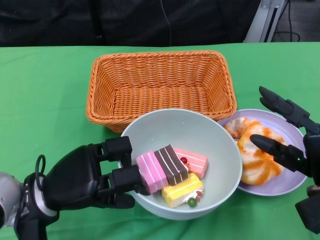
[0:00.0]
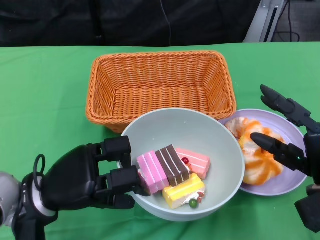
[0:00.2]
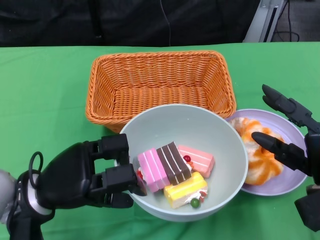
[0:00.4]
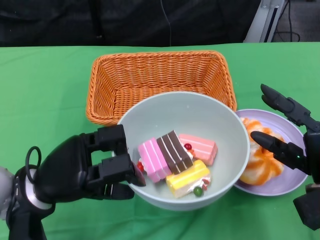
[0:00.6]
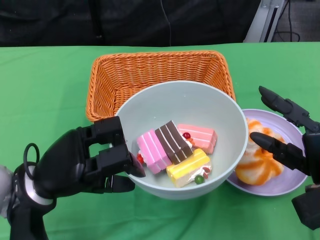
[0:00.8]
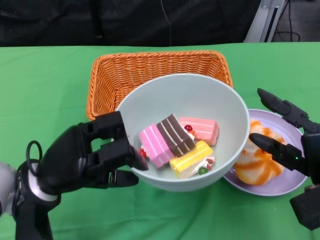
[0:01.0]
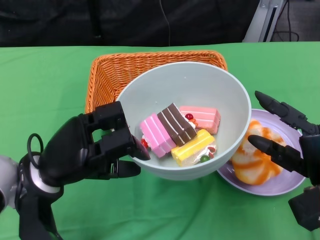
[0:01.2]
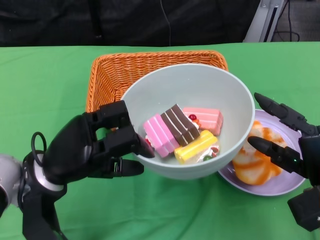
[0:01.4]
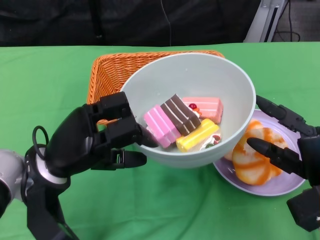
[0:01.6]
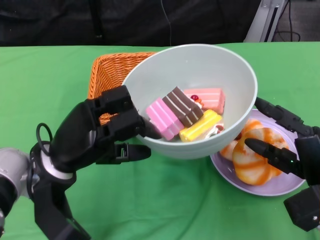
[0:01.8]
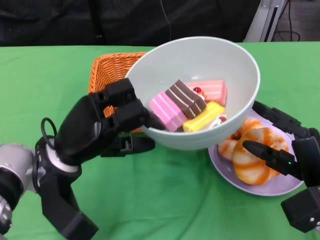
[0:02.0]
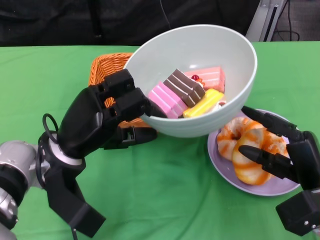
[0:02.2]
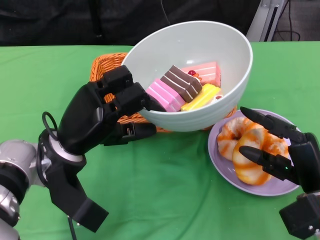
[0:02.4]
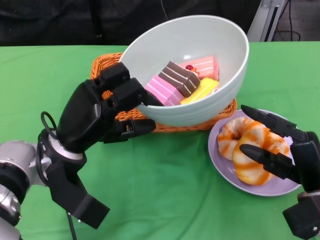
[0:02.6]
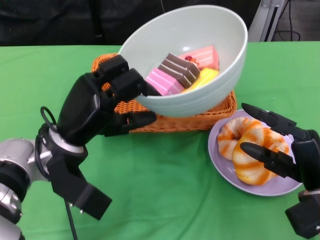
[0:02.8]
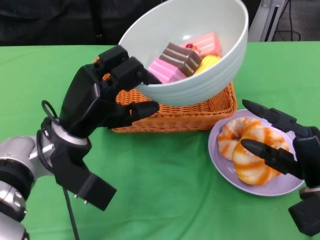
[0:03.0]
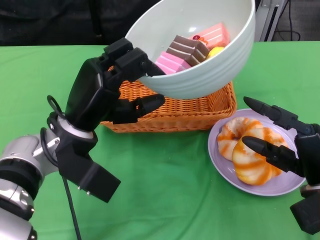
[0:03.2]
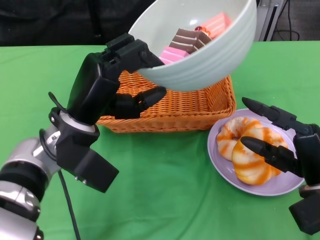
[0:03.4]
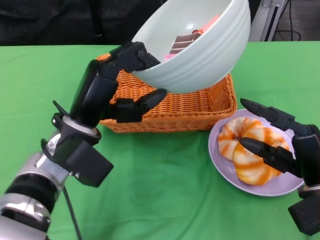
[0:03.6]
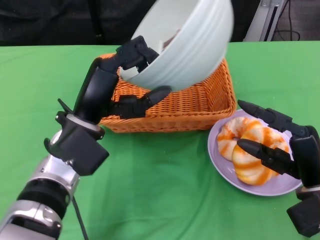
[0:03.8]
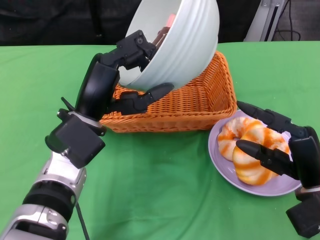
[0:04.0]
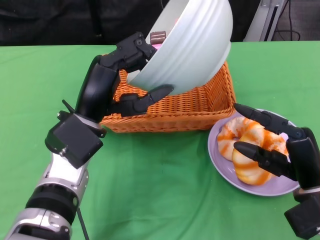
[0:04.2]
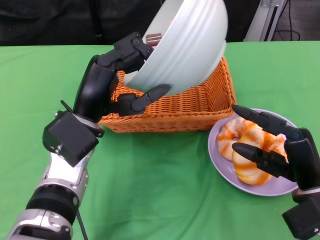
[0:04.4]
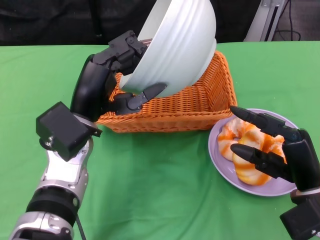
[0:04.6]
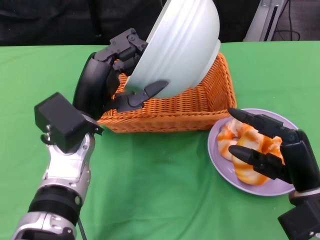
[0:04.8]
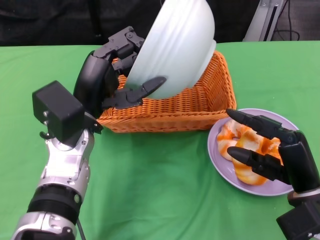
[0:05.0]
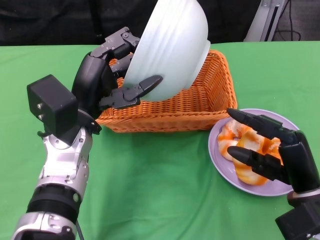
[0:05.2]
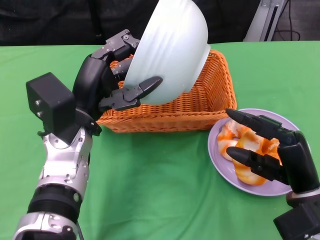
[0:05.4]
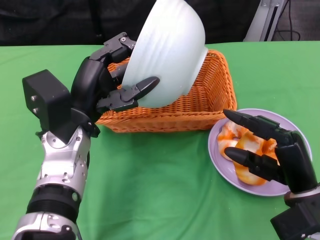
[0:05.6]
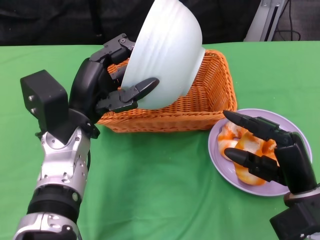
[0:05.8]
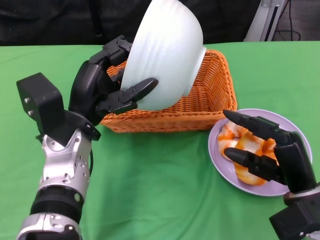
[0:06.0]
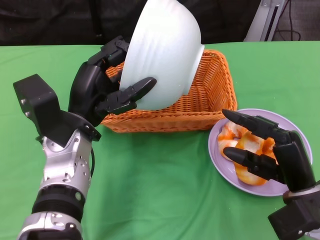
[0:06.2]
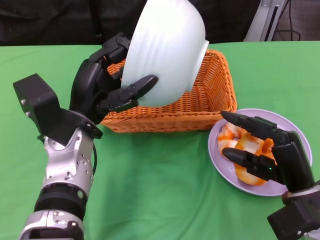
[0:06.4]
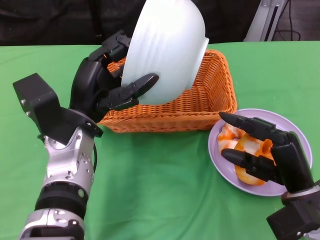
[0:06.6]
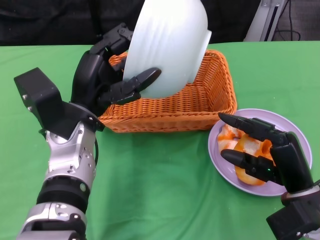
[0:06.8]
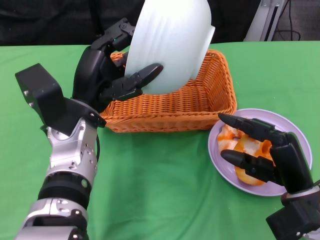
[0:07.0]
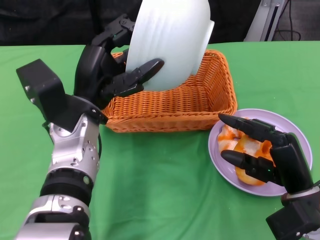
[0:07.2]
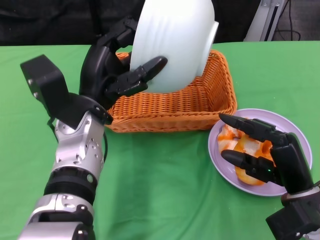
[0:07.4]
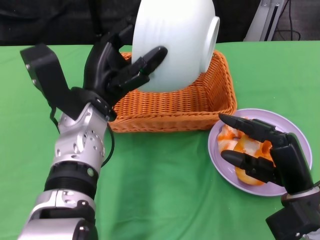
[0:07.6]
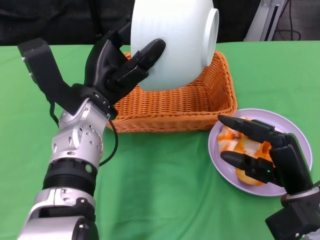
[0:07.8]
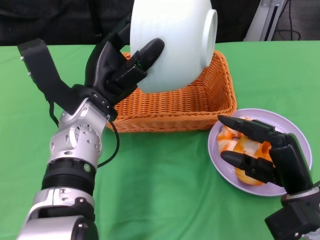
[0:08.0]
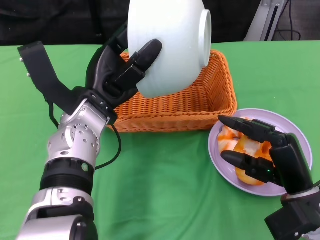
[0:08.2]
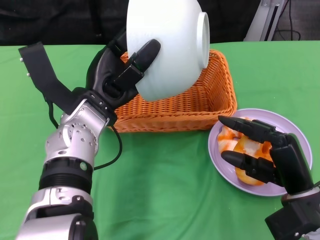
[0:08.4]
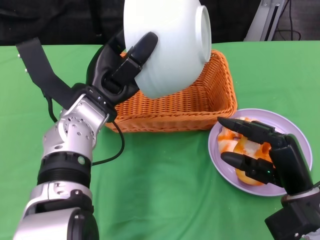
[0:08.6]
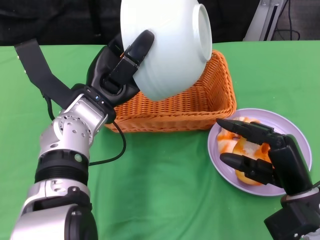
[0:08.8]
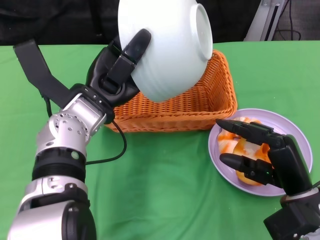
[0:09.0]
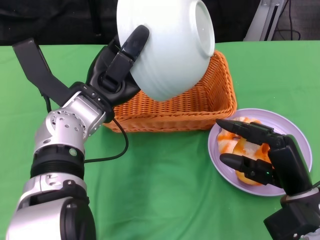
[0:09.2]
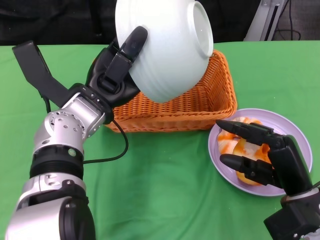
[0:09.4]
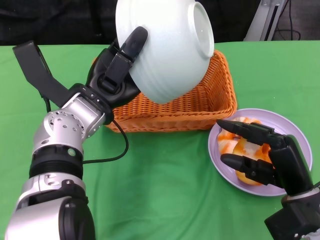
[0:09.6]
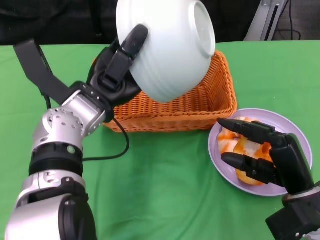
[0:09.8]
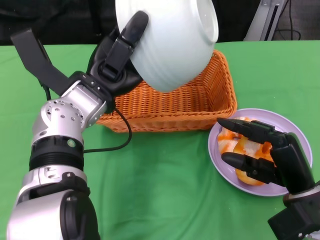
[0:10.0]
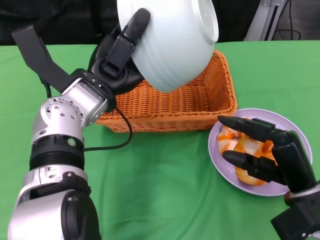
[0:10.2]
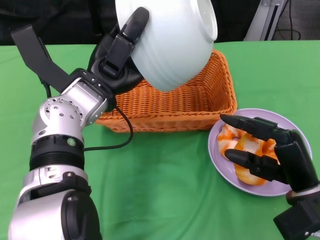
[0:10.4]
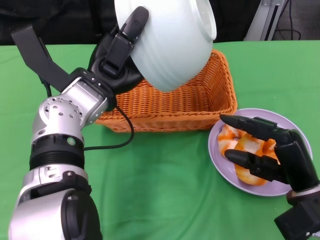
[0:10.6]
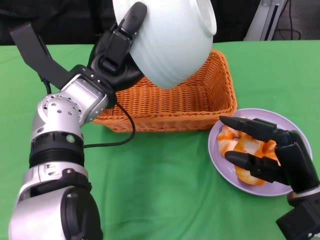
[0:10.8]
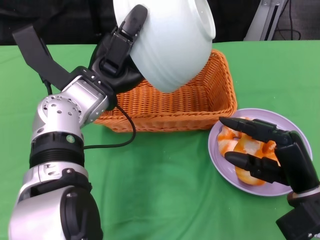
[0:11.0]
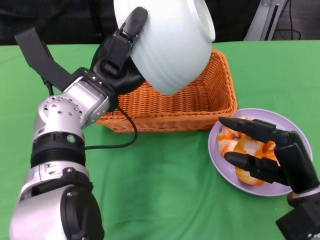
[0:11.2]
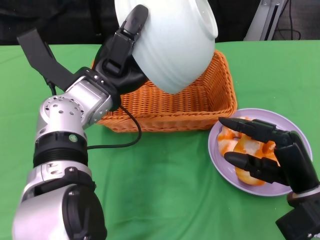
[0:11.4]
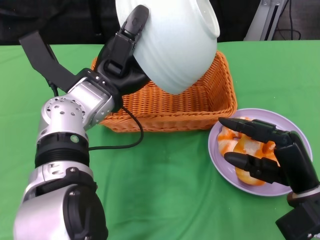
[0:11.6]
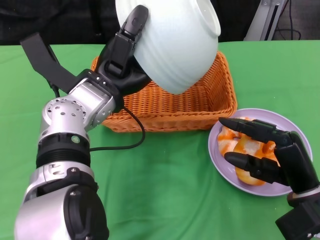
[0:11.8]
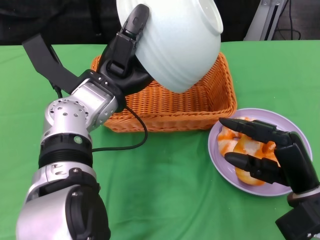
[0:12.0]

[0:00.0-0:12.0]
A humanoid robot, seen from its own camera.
0:01.6 to 0:03.0: The left hand shifts by about 5 cm.
0:10.4 to 0:12.0: The hands stay close to where they were, moving slightly.

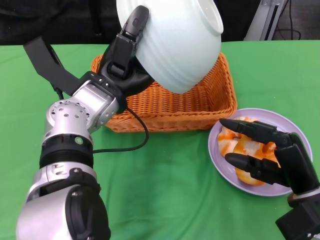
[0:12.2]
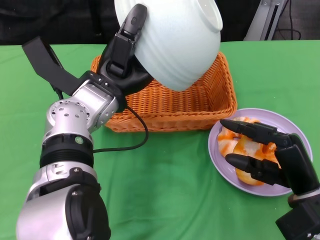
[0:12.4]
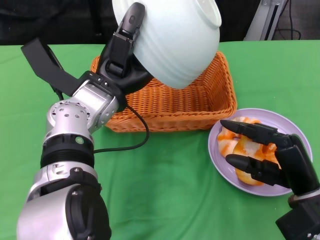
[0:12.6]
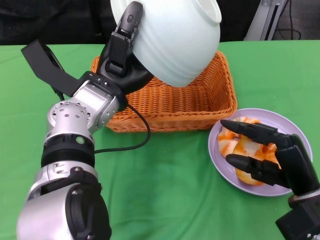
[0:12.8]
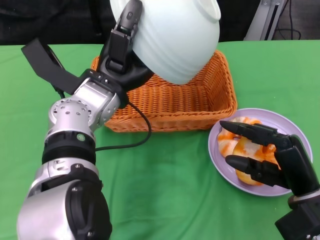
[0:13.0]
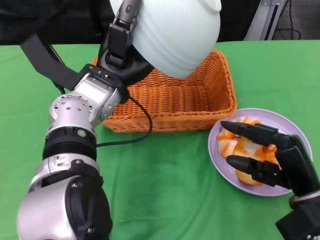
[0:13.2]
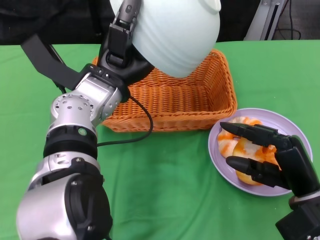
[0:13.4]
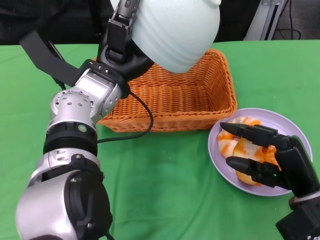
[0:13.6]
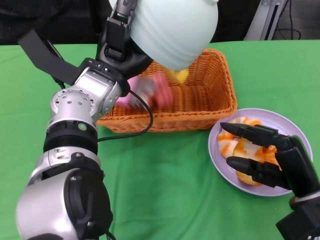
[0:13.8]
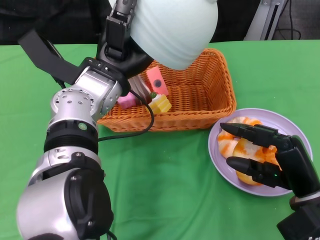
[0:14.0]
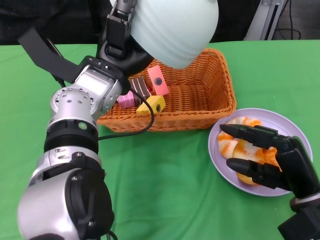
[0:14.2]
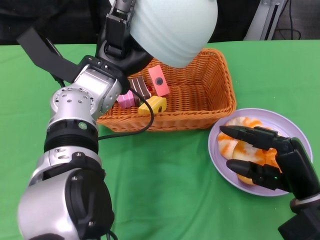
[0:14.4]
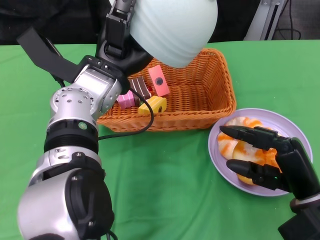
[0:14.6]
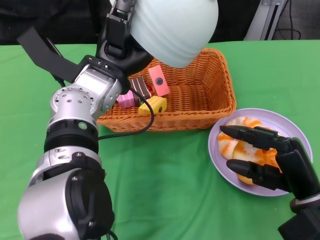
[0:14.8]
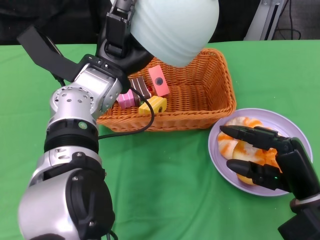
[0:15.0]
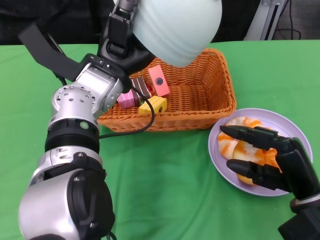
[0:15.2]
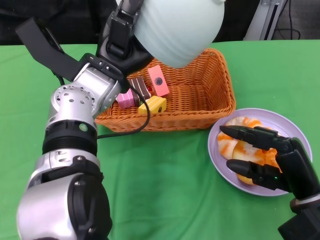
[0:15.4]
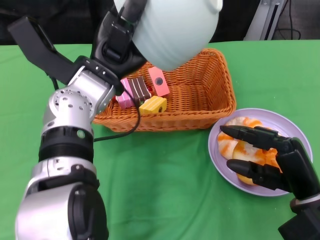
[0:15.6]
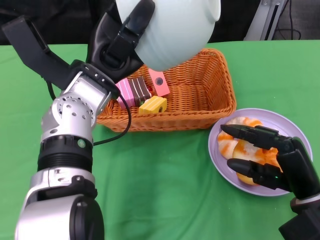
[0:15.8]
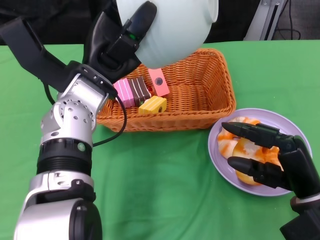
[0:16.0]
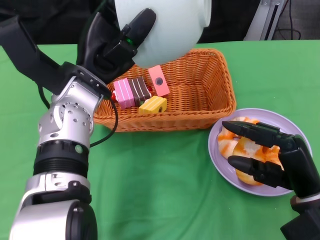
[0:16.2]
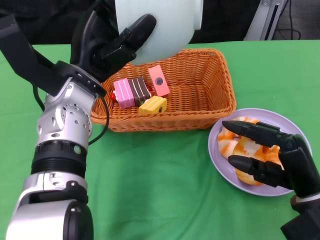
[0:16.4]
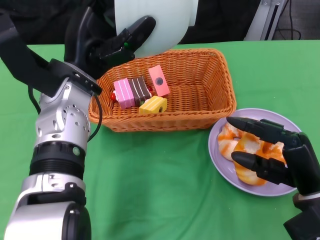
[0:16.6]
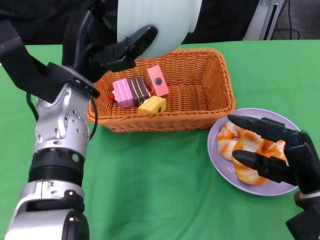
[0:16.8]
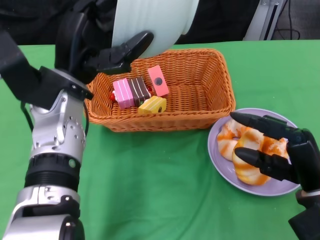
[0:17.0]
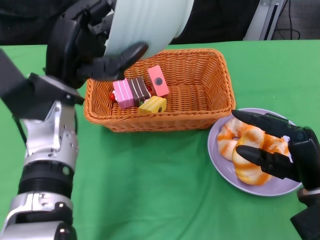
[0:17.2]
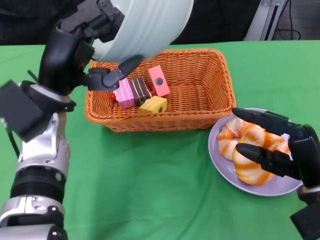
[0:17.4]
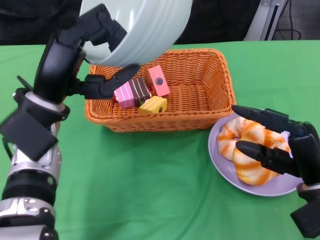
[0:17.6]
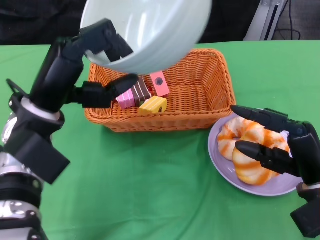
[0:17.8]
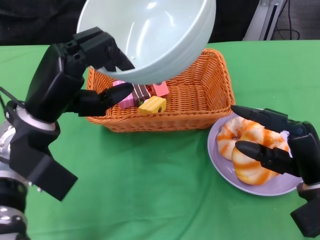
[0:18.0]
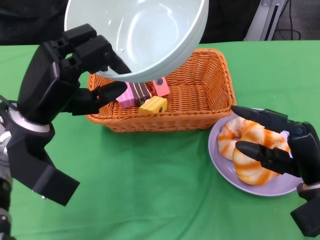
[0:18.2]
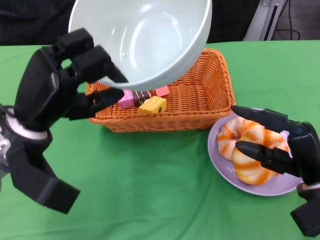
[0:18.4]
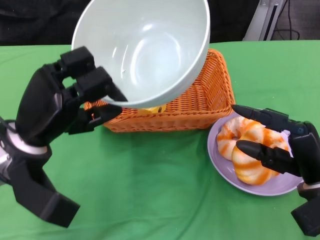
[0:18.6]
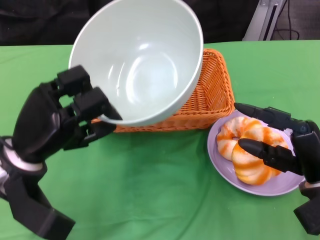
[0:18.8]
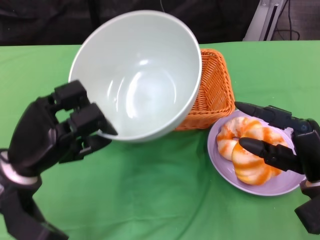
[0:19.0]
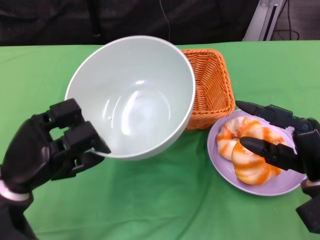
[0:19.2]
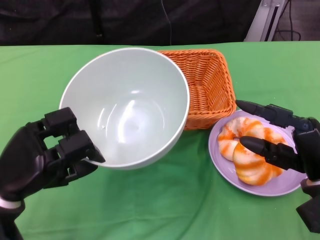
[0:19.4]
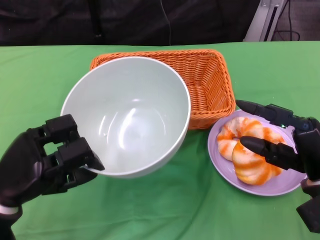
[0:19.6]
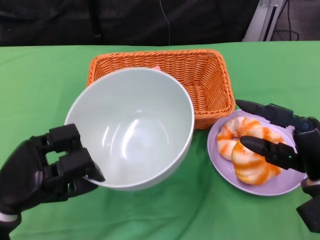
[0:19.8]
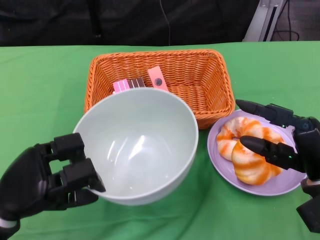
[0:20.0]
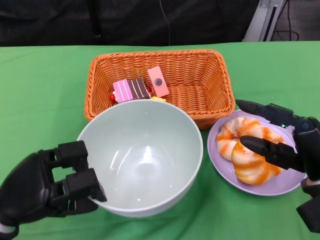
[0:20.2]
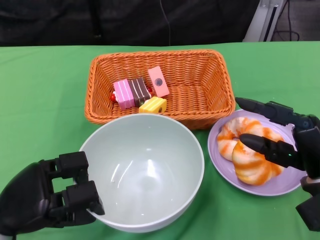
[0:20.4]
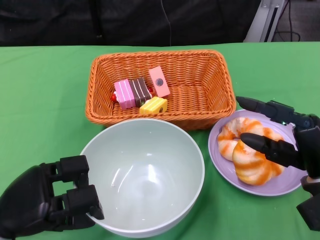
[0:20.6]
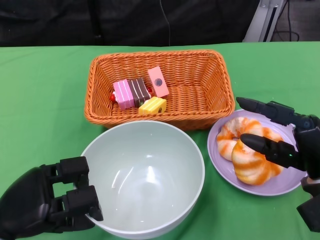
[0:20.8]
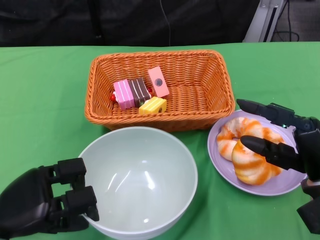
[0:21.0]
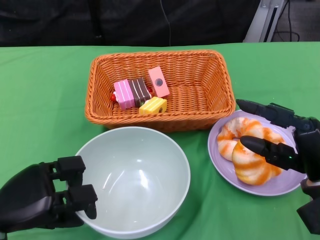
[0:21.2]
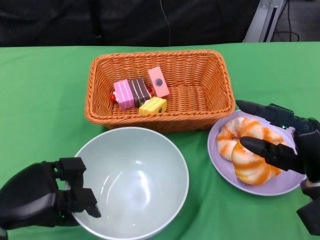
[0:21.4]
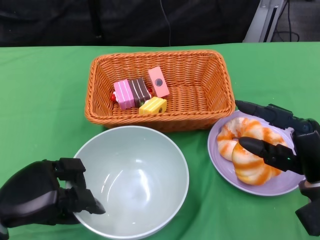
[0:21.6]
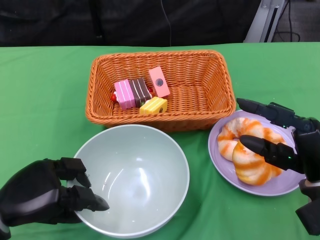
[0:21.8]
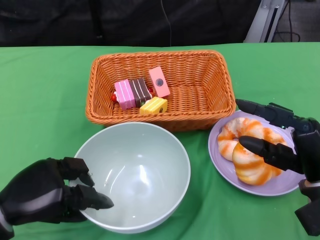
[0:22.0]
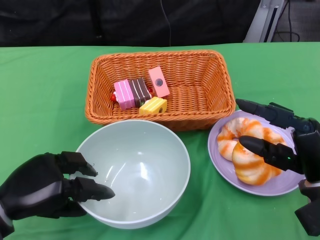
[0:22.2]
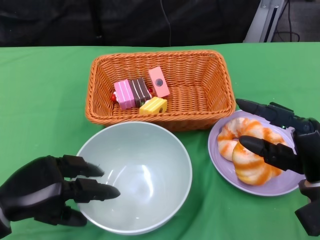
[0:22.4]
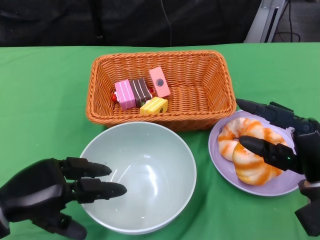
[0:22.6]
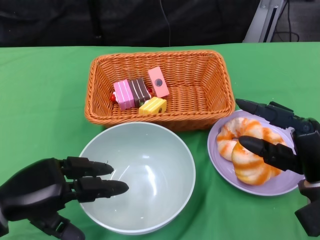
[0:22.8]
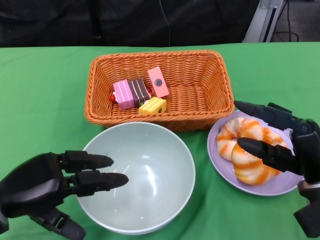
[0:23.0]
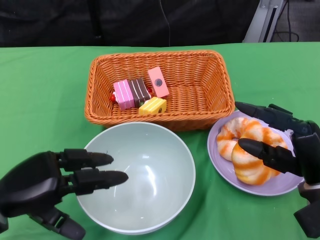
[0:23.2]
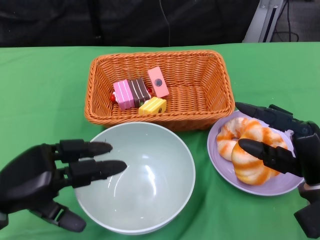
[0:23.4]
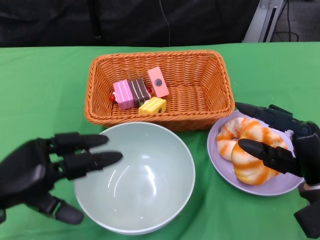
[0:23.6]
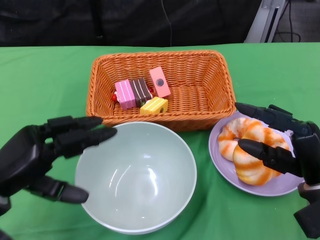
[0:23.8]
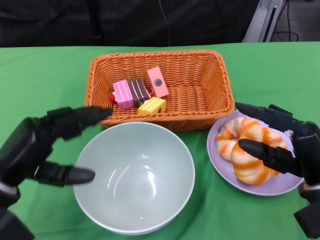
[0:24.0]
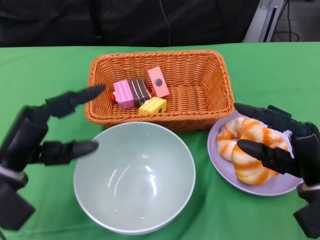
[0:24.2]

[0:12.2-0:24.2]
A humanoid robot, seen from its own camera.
Step, 0:12.2 to 0:15.2: Pour the cake into the basket with the left gripper.
Step, 0:15.4 to 0:23.6: Place the bowl on the table with the left gripper.
0:13.8 to 0:15.2: Neither hand changes place.
0:16.6 to 0:18.2: The left hand heads to the left, covering some 5 cm.
0:18.2 to 0:19.8: The left hand travels downward, backward and to the left by about 10 cm.
0:21.2 to 0:22.6: The hands make only small movements.
